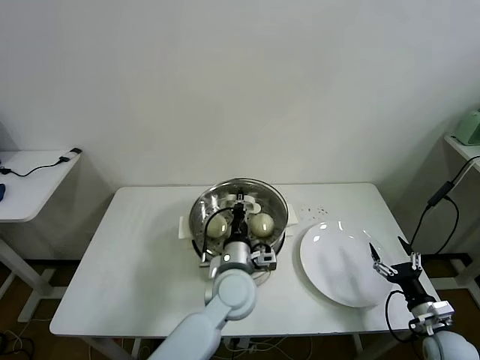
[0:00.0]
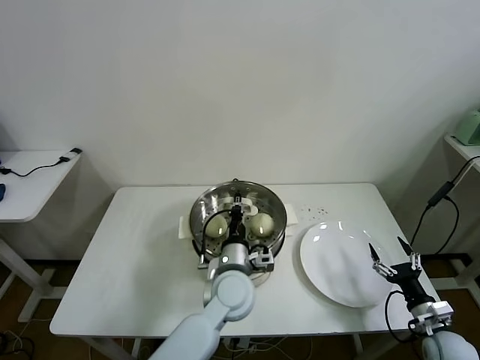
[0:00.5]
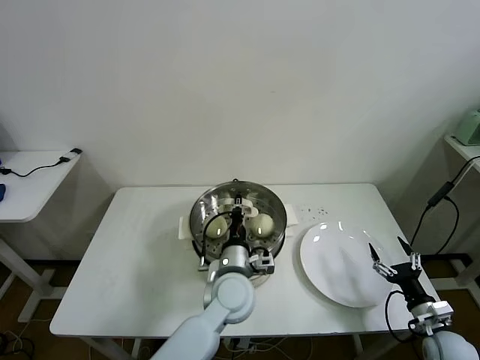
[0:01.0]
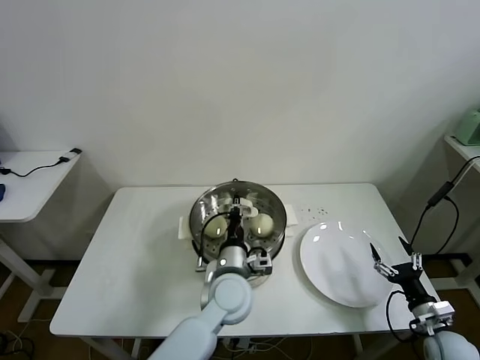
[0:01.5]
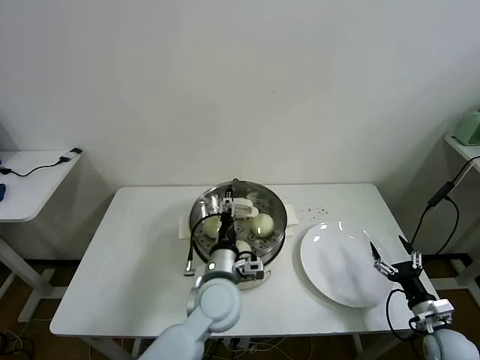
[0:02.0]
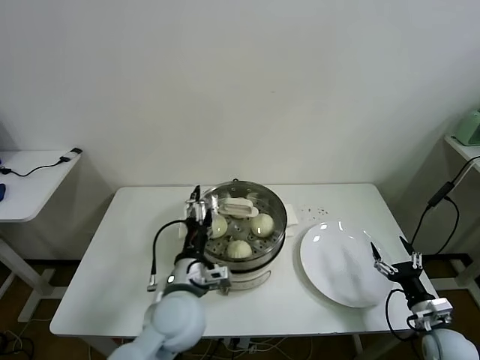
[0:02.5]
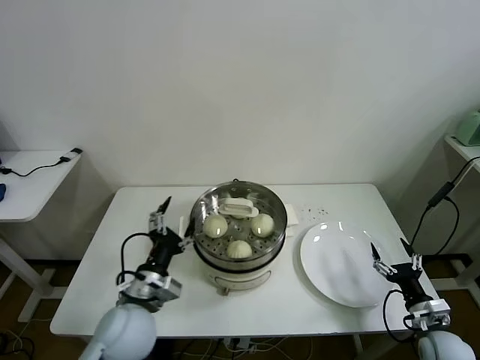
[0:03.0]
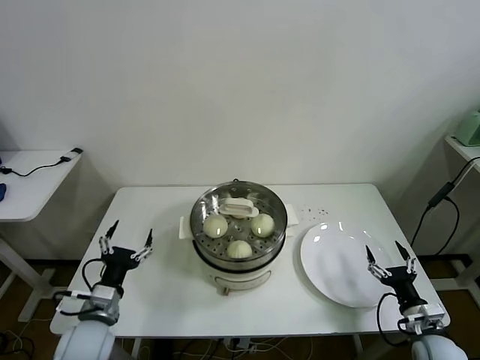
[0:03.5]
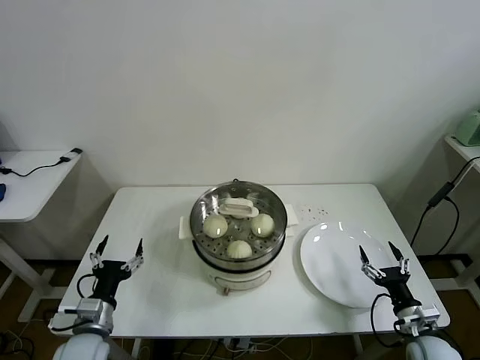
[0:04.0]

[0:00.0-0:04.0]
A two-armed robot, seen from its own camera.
Task of the whole recording: take steamed baozi put them in steamer then cover it.
0:00.0 to 0:02.0: The left gripper opens.
0:02.0 to 0:04.0: The right gripper shifts by about 5 cm; the left gripper goes about 30 cm to the left, and opens.
